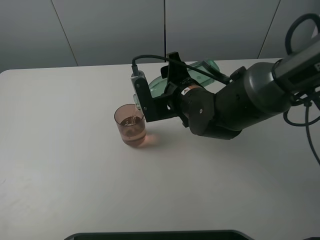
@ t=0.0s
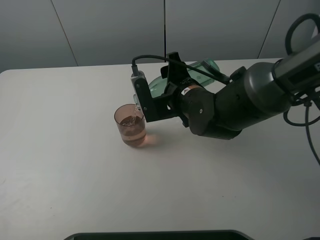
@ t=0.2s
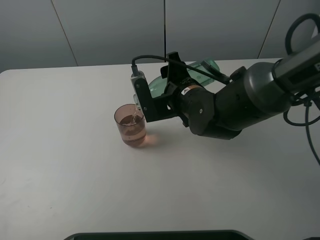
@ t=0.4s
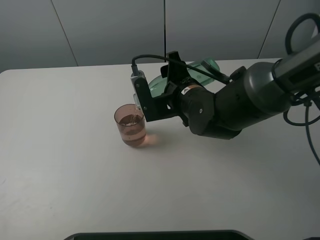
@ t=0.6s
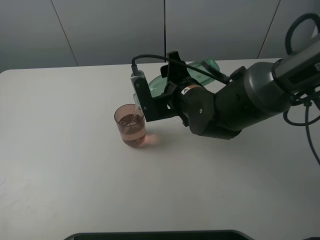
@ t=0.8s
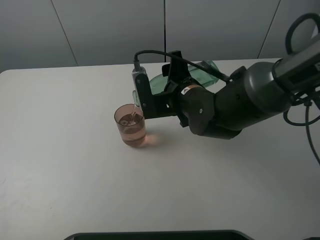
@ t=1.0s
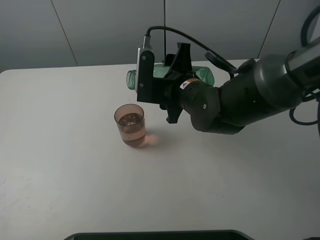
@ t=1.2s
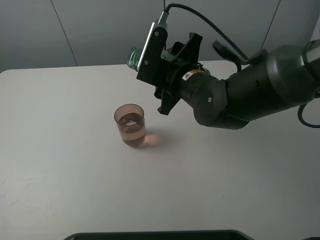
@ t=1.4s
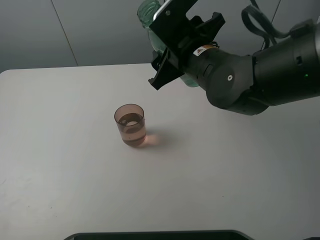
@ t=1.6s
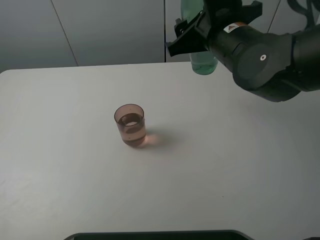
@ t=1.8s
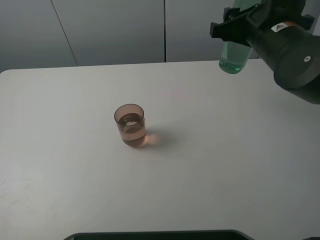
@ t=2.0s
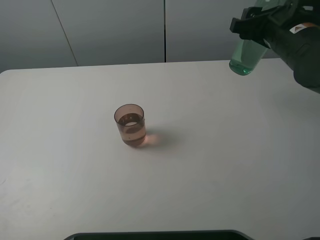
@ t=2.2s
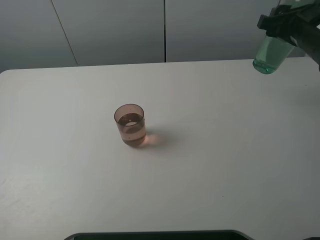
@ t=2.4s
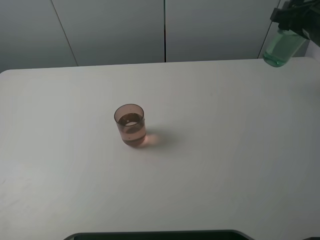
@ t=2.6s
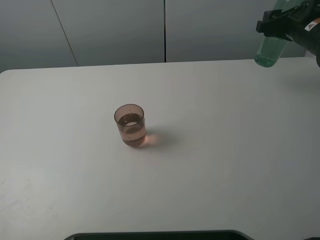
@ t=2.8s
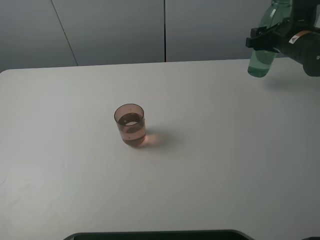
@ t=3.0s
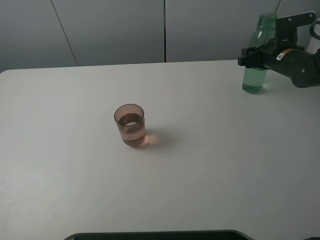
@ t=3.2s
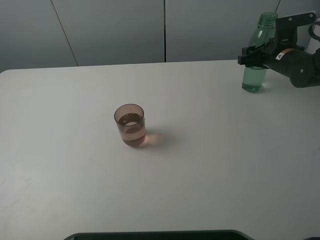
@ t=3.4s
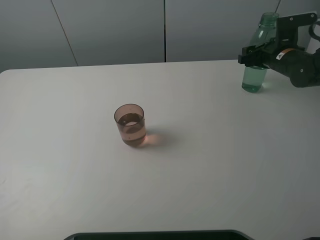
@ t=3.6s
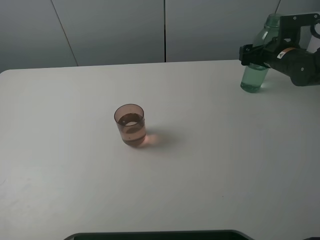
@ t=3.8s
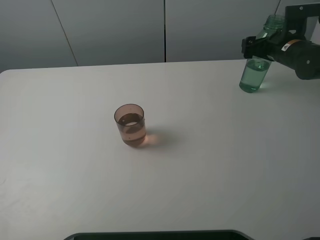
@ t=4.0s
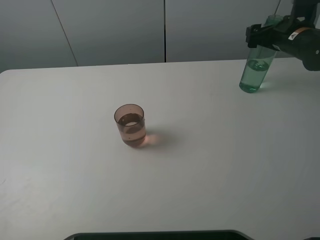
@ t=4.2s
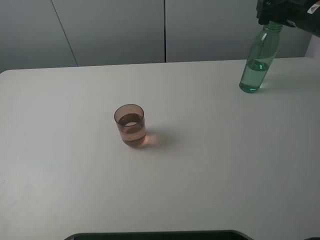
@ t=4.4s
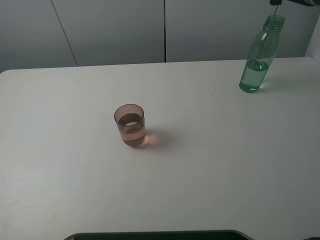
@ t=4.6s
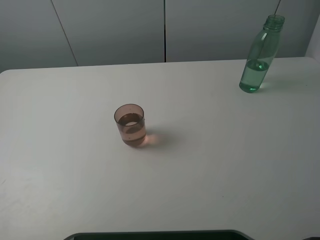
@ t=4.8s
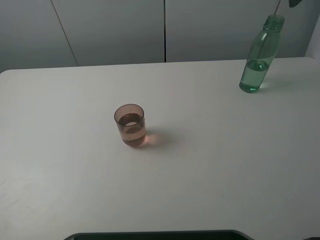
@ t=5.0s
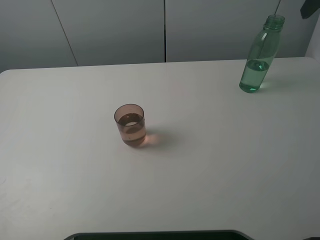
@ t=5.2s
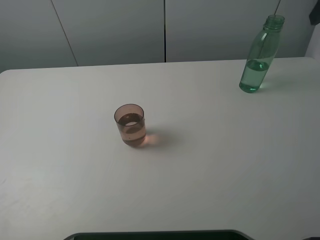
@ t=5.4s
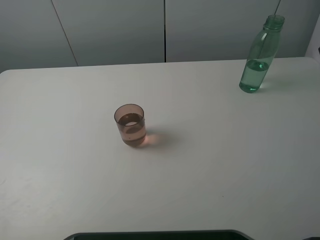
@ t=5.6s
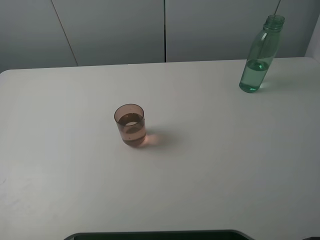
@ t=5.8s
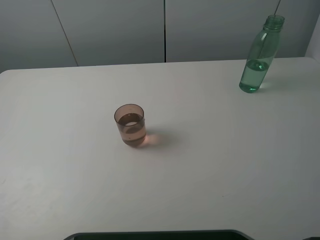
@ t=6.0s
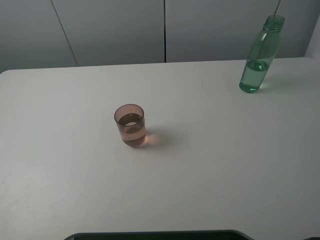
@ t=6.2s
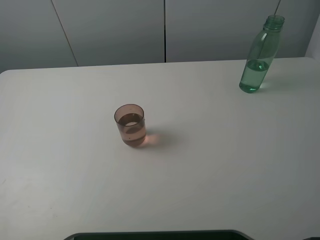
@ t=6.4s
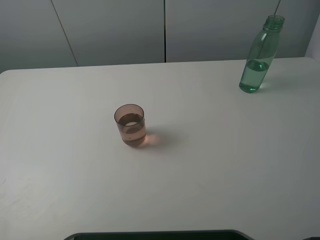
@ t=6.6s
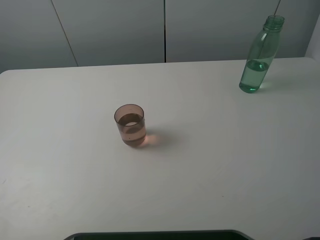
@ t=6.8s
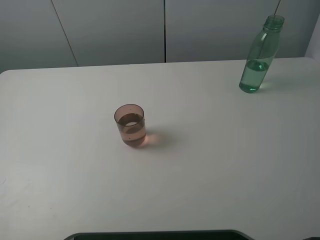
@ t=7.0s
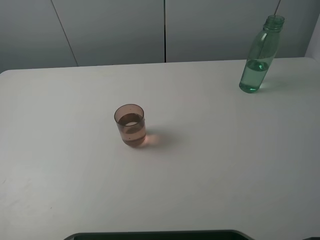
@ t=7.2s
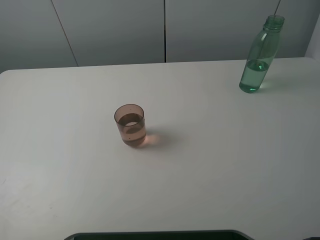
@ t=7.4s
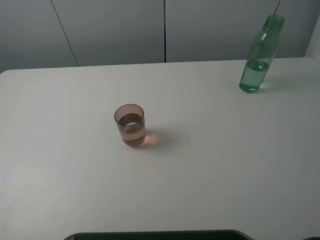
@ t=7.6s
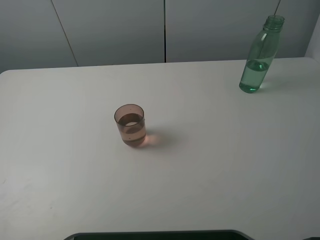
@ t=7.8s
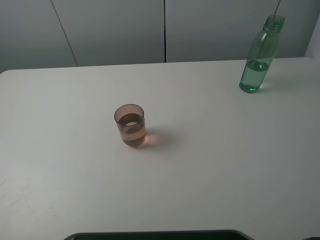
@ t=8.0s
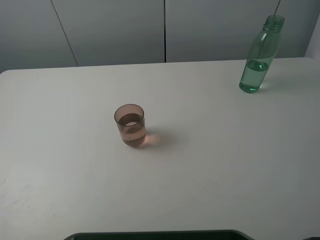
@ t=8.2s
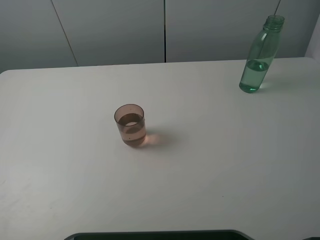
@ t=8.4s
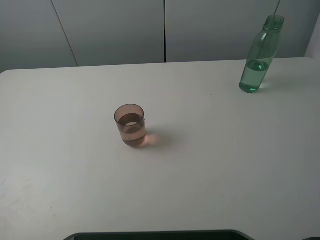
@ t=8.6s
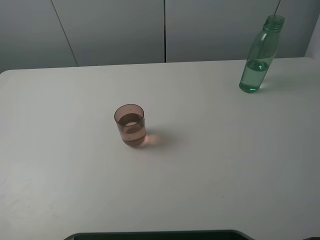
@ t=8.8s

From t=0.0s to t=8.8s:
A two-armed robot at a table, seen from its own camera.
Task of the whole recording: pick up the bottle filled with water and pour it into the pink cup.
Step, from t=1.4s to t=4.2s: Place the green bottle with the right gripper.
From t=1.4s to t=3.0s: The right gripper travels to the right and forward by about 25 cm.
From t=3.0s to t=4.4s: The right gripper goes downward and returns, approximately 5 cm each way, and opens its fingers.
From t=4.4s to t=5.8s: The right gripper is displaced backward and upward by approximately 25 cm.
From t=7.4s to t=8.8s: Both grippers stay about where they are.
